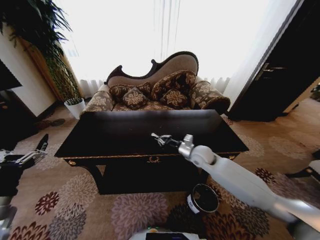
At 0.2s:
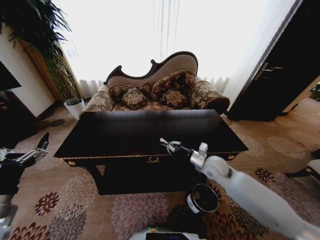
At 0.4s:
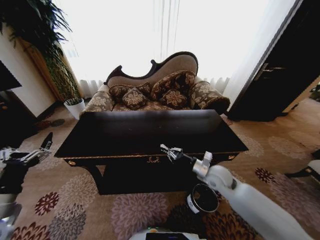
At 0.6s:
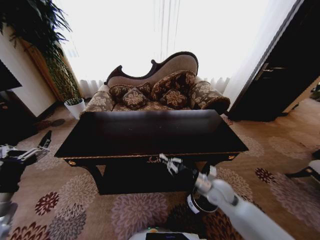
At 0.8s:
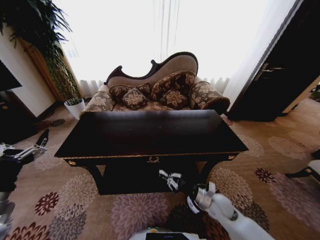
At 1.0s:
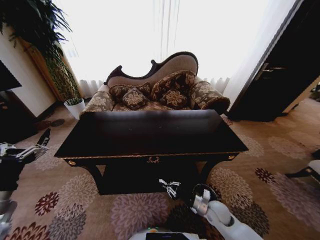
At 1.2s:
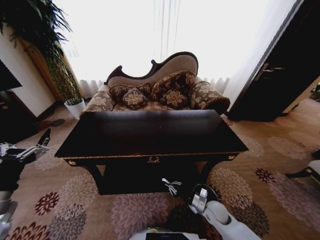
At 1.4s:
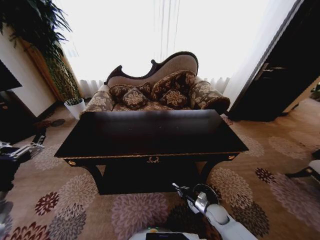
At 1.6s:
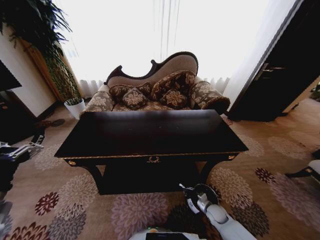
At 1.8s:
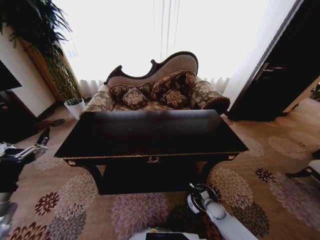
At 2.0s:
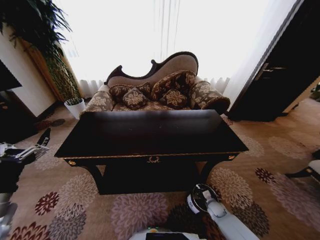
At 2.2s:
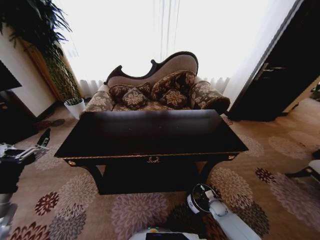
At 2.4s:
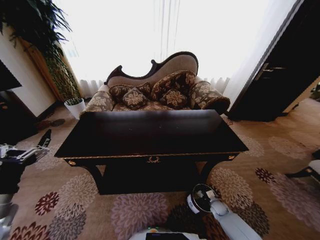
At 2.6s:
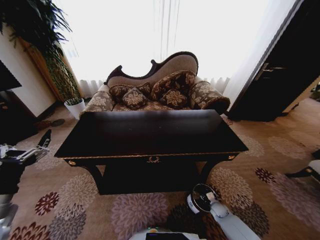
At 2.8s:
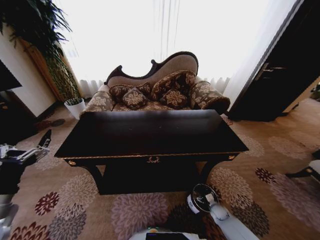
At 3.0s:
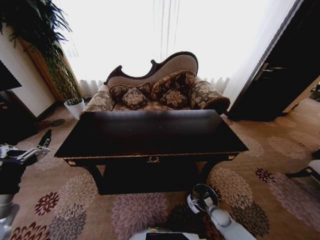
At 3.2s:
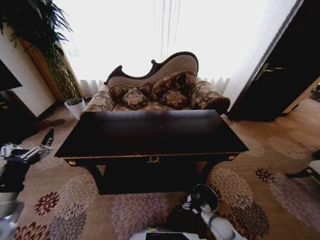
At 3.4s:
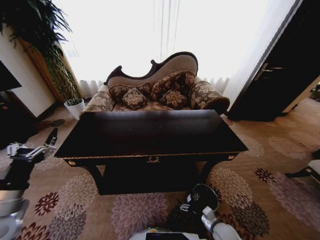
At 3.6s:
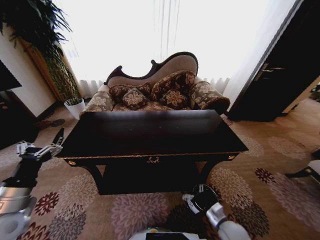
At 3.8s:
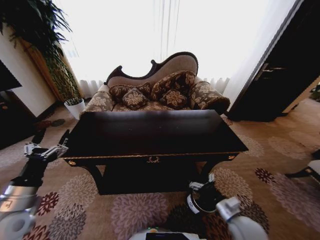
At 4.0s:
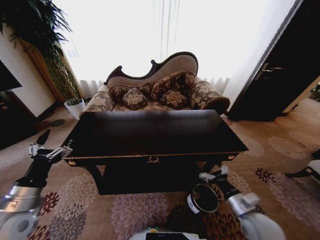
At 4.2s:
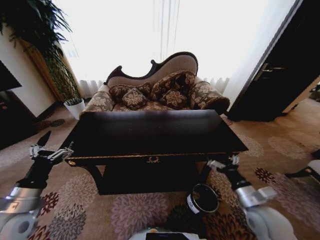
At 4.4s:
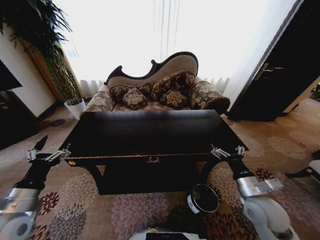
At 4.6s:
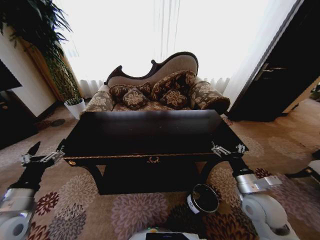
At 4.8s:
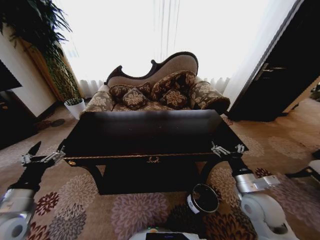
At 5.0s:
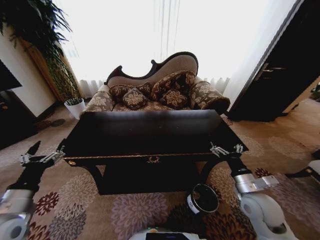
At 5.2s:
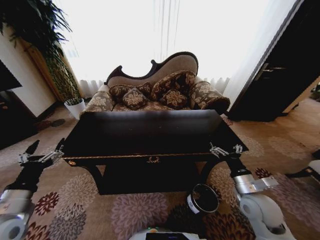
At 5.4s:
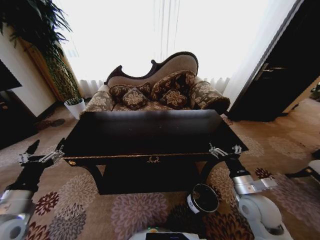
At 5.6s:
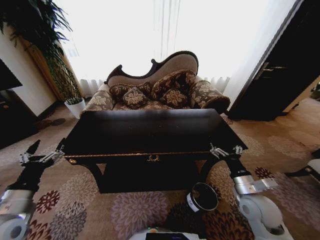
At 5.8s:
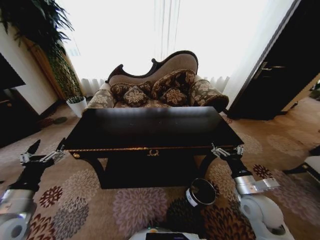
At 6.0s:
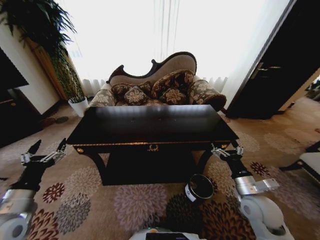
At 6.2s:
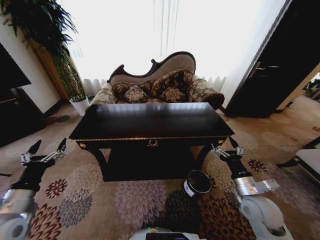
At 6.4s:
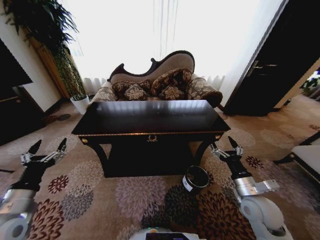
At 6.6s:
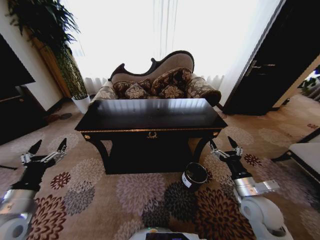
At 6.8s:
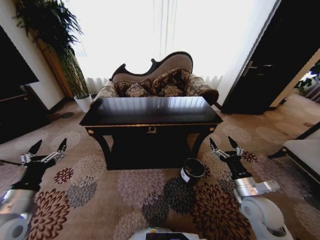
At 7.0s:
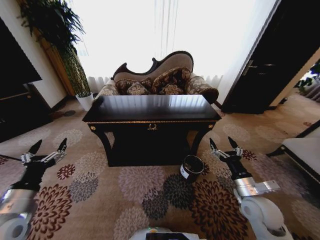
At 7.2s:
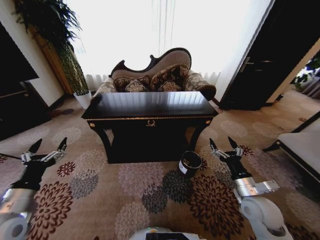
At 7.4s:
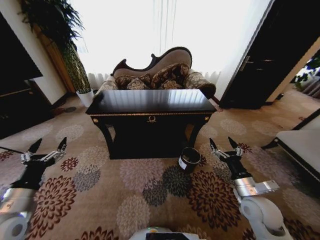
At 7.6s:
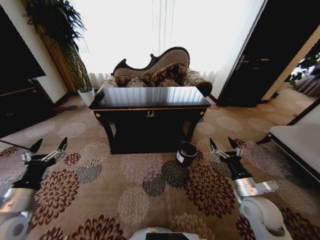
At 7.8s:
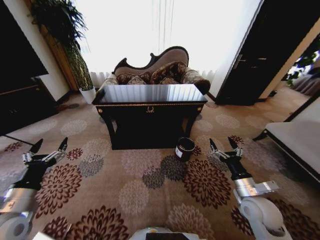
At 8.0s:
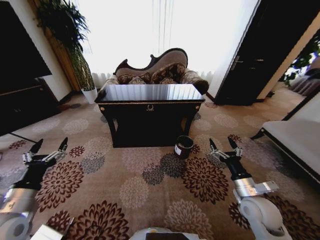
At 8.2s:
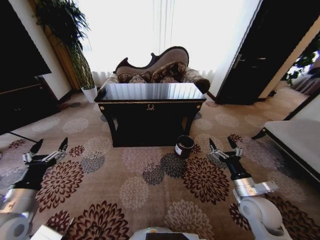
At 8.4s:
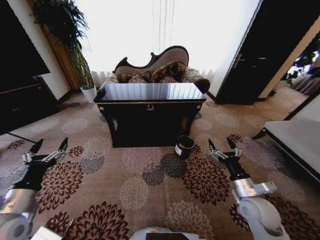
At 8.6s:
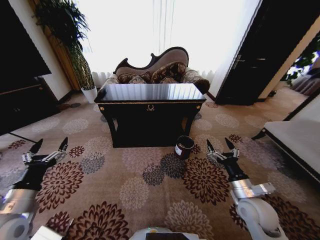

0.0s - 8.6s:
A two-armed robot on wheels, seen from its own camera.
Task of the whole recording: Move to the front of the table and place the trash on the table into the trash bin.
0.0s - 1.4s: The right gripper shifts about 30 cm downward and backward.
1.4s - 2.8s: The right gripper is displaced downward and to the right by roughly 10 cm, and opens up.
2.8s - 4.4s: The right gripper travels upward by approximately 35 cm.
4.4s - 5.8s: The grippers move only a little.

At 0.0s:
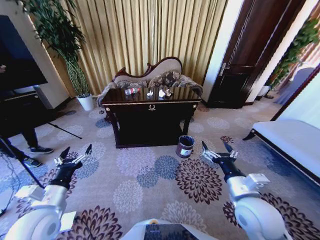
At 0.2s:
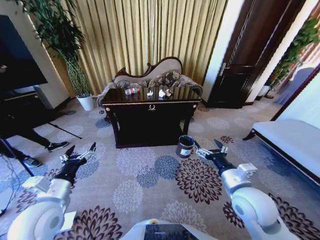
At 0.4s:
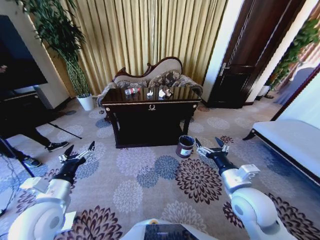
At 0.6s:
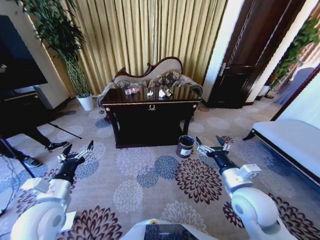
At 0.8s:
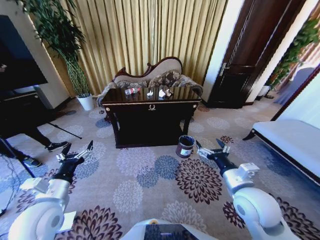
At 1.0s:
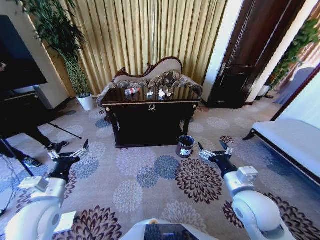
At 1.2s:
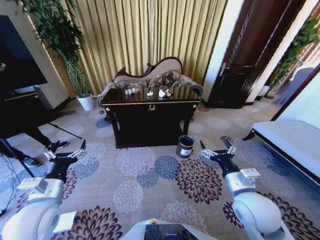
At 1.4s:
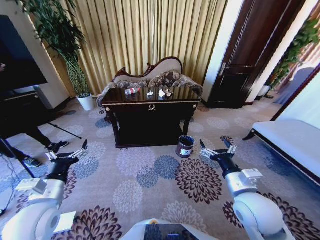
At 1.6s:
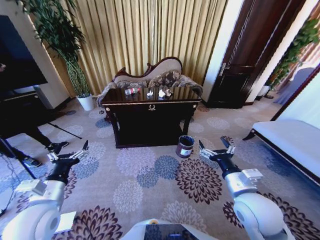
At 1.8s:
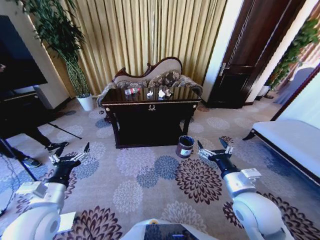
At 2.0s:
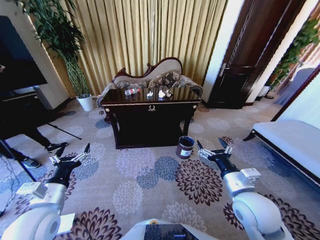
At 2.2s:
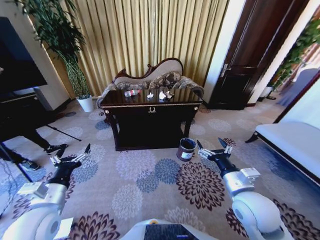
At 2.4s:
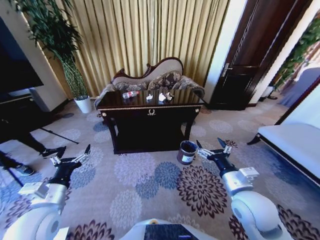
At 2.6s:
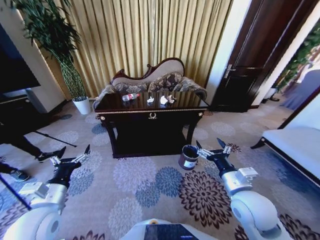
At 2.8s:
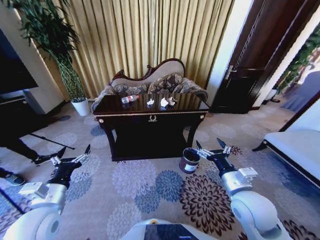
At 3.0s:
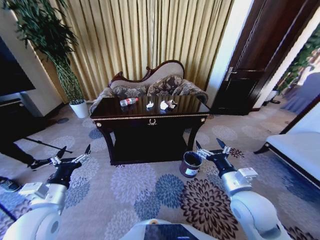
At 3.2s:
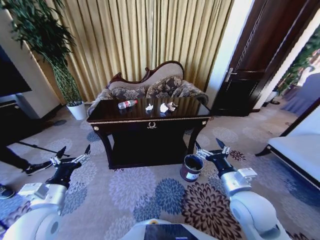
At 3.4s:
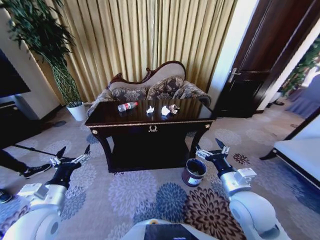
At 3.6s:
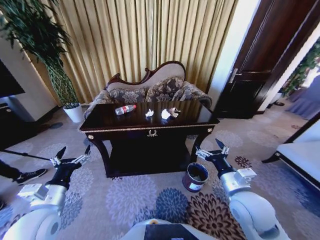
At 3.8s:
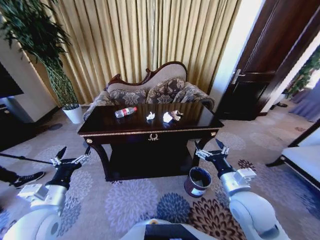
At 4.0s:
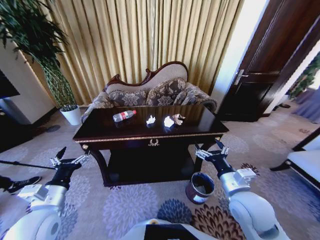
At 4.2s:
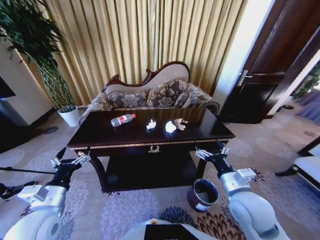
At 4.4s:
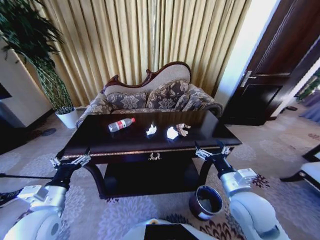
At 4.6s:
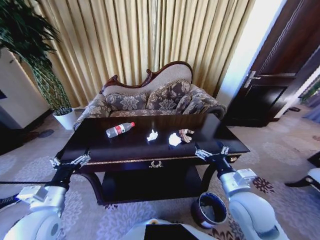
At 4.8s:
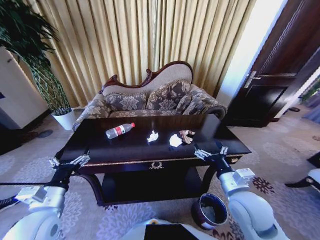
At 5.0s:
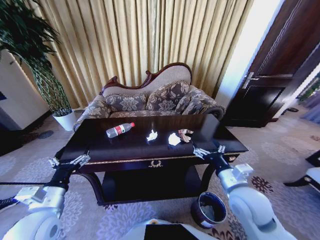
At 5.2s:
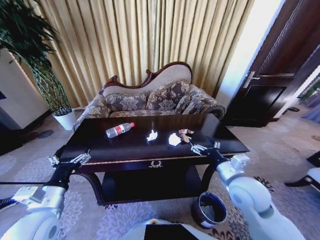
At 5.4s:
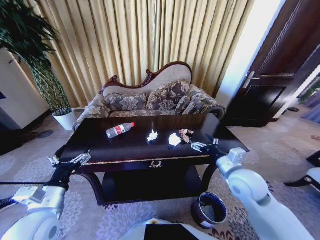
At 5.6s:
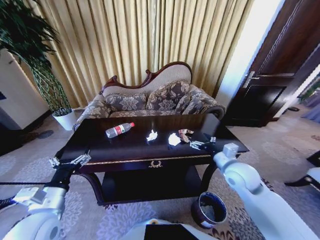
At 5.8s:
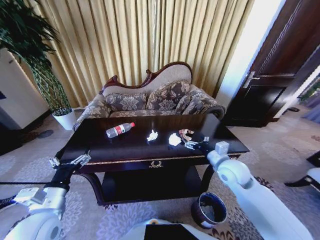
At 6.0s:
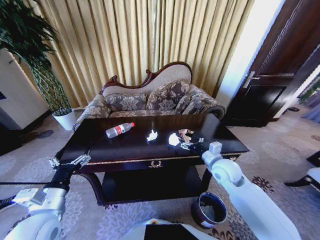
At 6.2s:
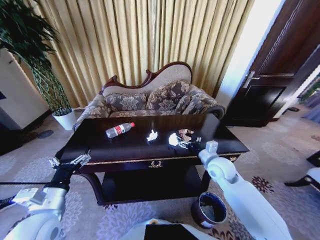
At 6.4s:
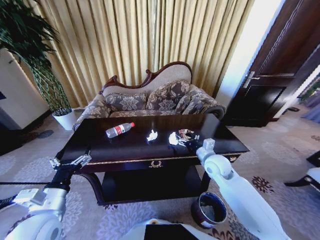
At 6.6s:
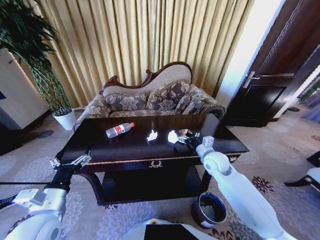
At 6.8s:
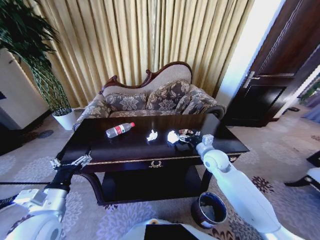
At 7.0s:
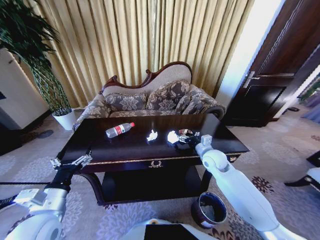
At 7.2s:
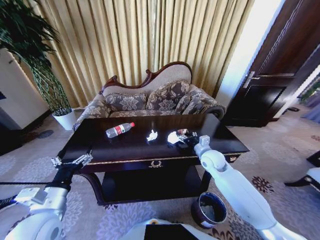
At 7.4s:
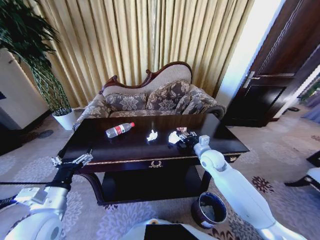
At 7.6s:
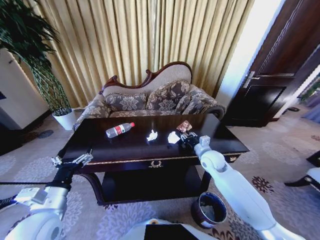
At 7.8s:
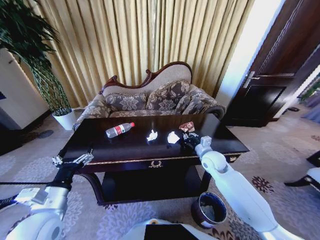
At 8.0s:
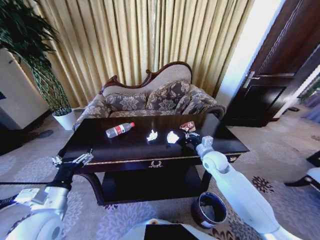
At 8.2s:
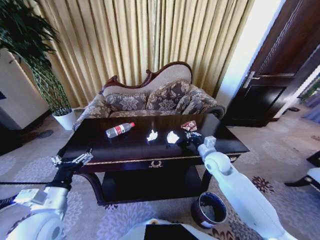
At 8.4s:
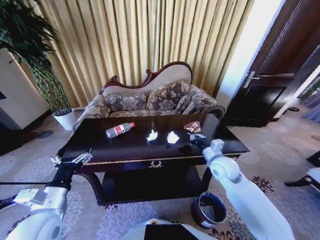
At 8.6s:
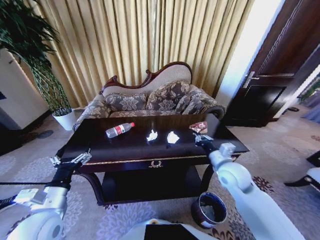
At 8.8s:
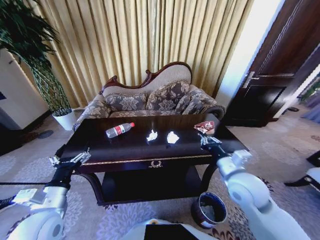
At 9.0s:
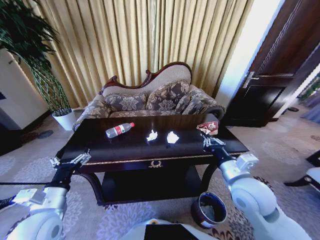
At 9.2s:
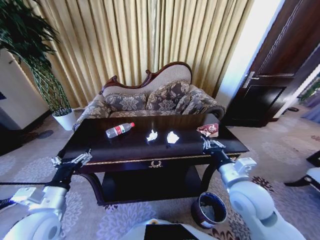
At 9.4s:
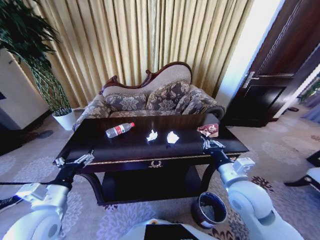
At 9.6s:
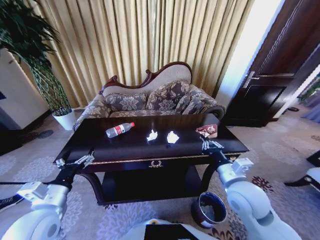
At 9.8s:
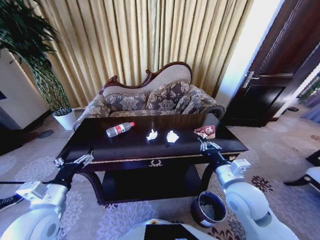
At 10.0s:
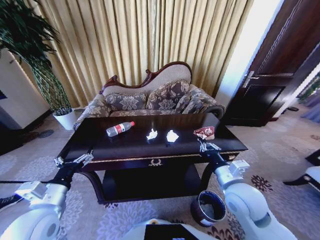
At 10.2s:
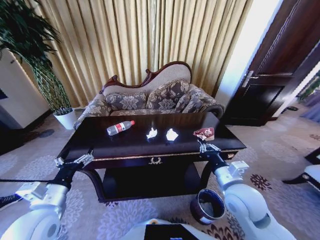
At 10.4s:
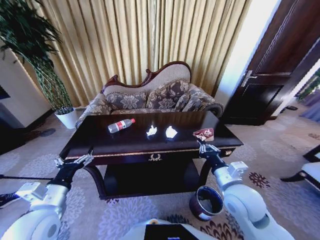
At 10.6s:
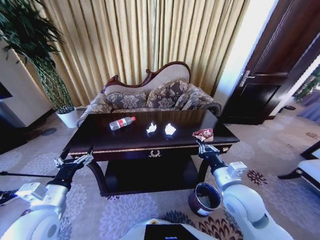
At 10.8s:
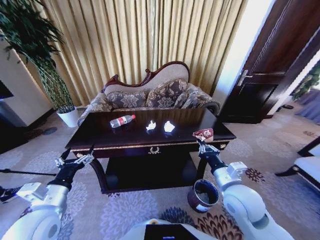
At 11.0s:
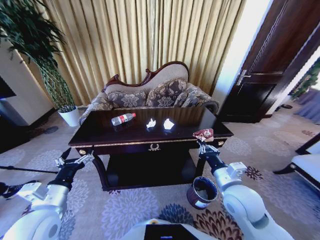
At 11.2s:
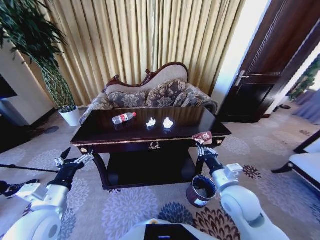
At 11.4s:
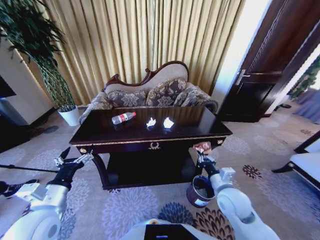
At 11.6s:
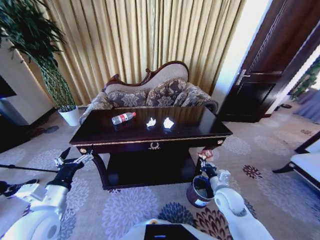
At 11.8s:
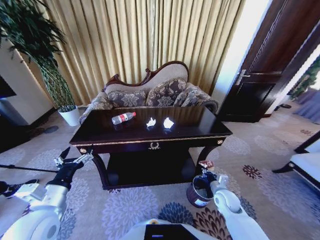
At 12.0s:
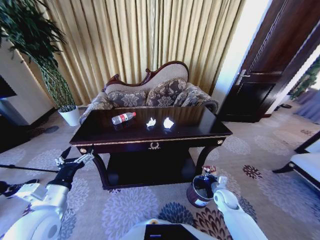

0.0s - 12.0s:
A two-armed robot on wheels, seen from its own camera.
Task of the whole recording: Move to the front of the table and place the trash on the table into the trash bin.
4.4s - 6.0s: The right gripper heads forward, covering some 15 cm.
6.0s - 7.6s: The right gripper goes about 5 cm forward, and closes its fingers.
7.6s - 9.0s: The right gripper heads backward and upward, covering roughly 20 cm, and closes its fingers.
10.4s - 12.0s: The right gripper shifts approximately 25 cm downward and to the right.

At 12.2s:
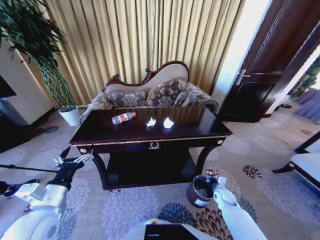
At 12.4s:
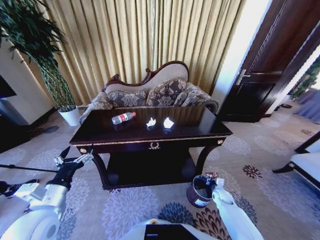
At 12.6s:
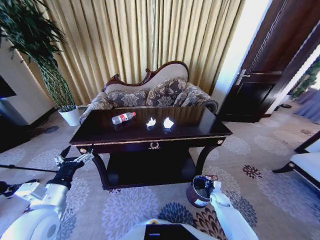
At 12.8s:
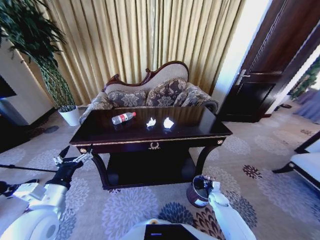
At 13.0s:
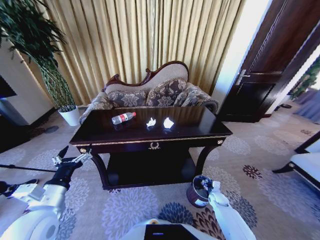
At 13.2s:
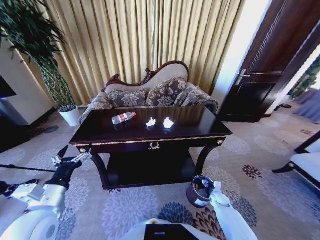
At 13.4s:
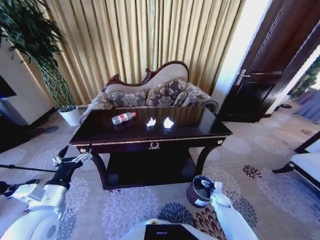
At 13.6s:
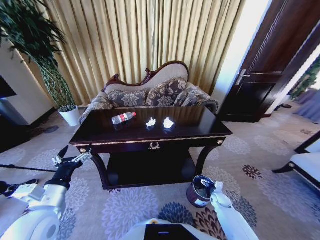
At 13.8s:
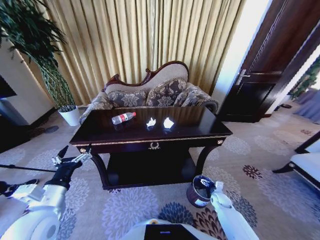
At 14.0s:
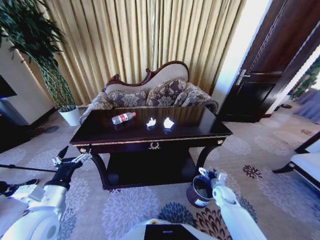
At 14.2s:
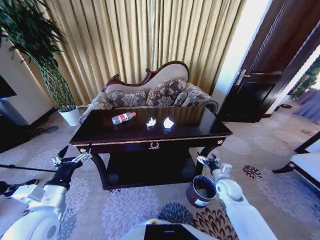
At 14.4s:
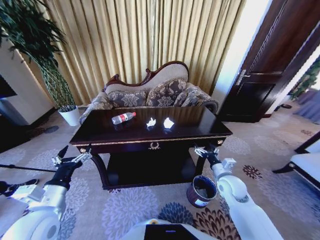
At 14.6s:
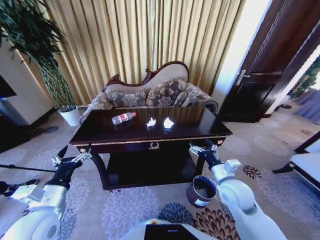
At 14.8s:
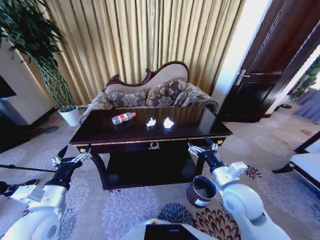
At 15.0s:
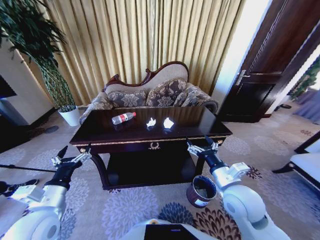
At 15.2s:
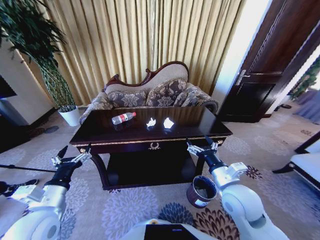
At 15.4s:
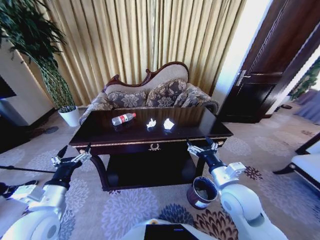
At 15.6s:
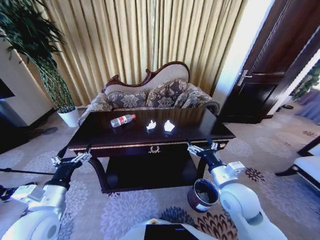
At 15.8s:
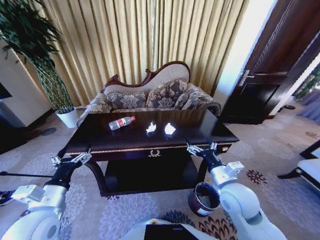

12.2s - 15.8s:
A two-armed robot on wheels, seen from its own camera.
Task of the whole recording: Move to the front of the table and place the trash on the table into the trash bin.
12.2s - 14.0s: The right gripper reaches roughly 5 cm downward, then returns, and opens up.
14.0s - 15.8s: The right gripper goes approximately 30 cm upward and to the left.
